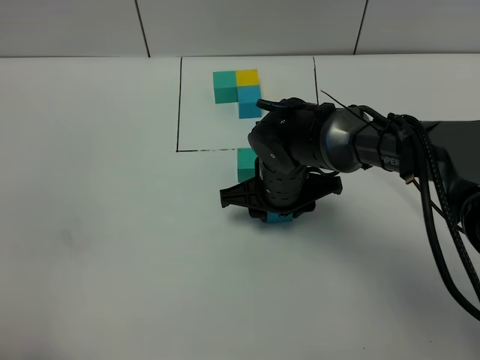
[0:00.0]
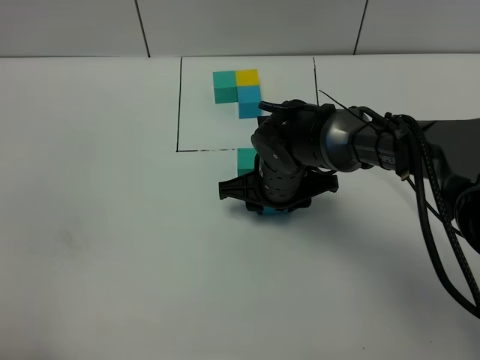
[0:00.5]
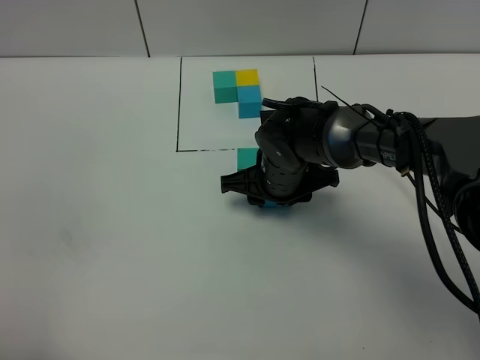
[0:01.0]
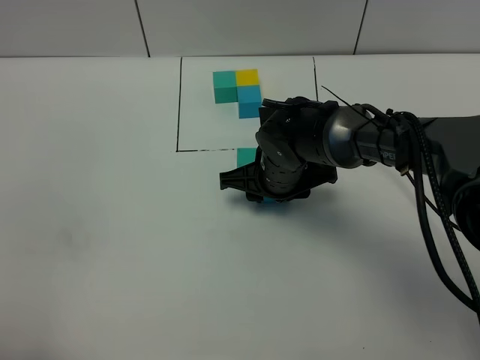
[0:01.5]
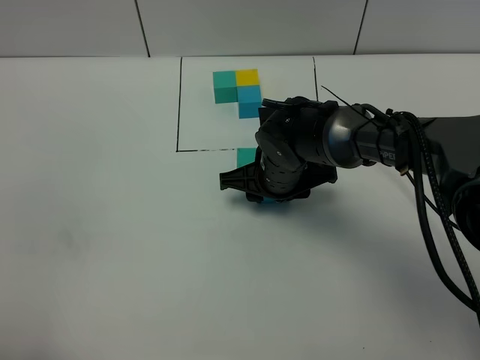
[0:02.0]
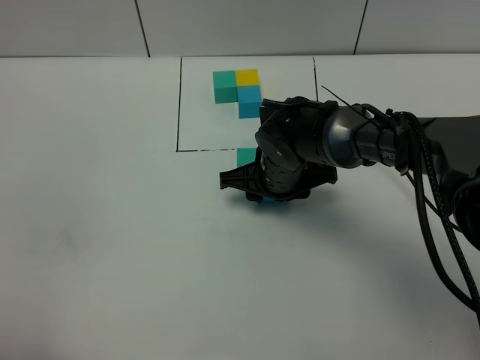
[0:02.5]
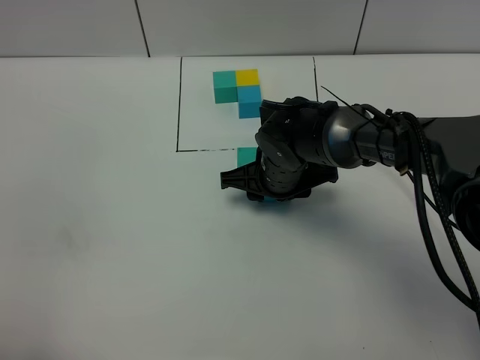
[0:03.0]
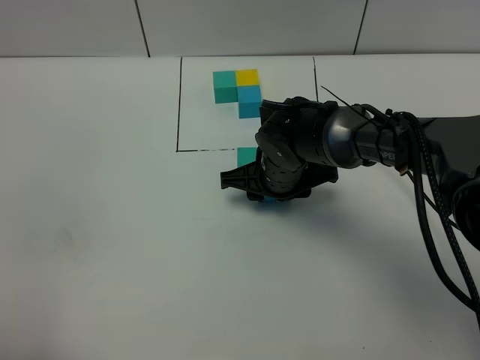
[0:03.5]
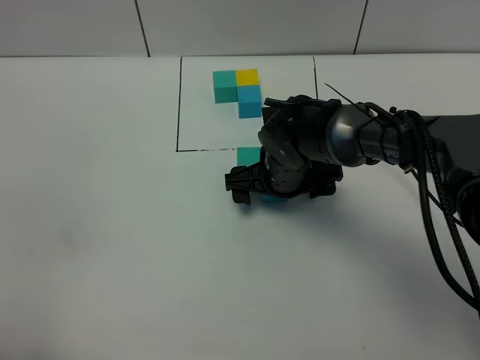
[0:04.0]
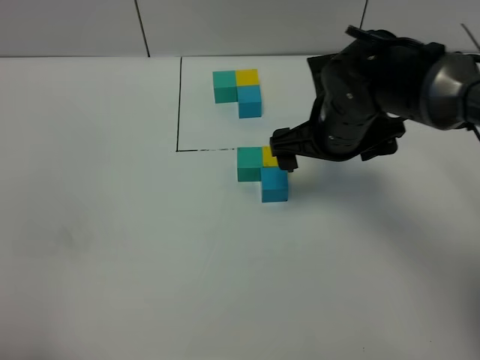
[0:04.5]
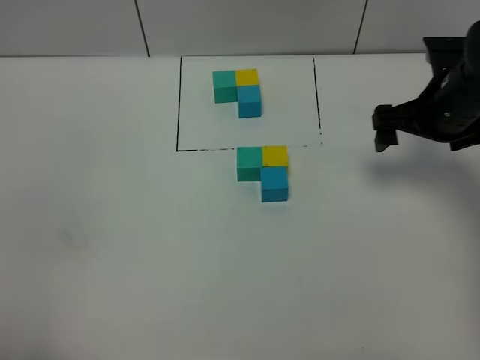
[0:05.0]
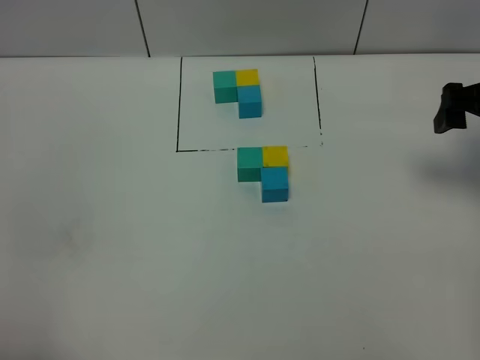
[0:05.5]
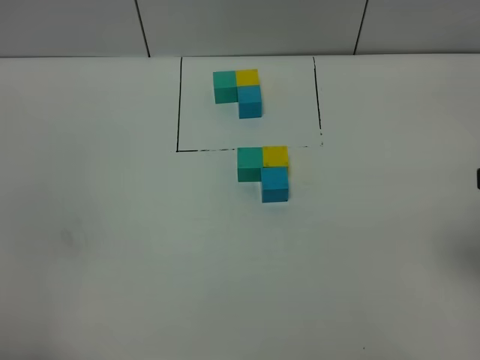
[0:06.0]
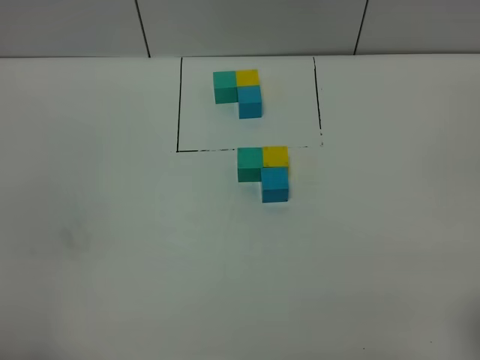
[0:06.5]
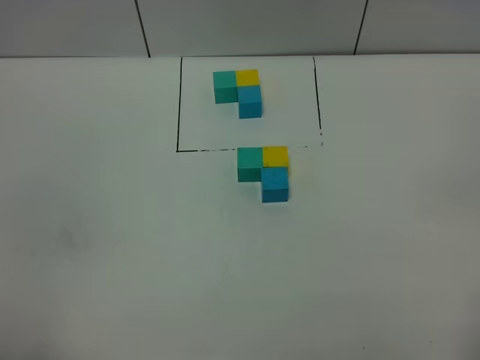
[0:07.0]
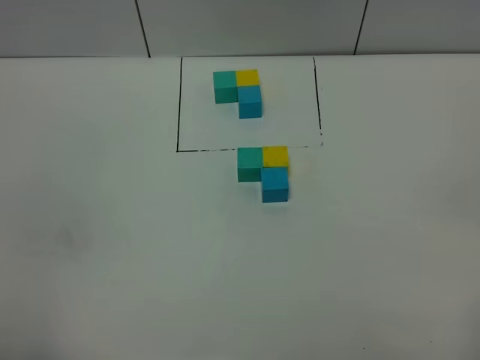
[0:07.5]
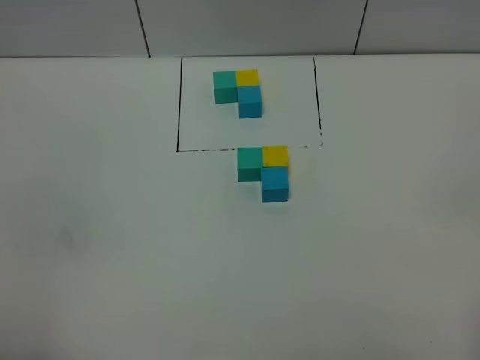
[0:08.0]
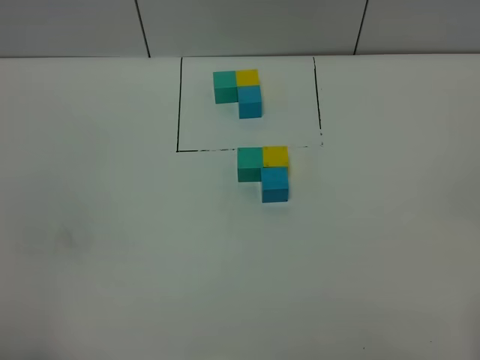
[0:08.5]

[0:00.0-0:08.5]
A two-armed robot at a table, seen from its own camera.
Task of the whole recording: According to the building block template in front, assemble the scattered blocks together.
Step, 0:00.0 to 0:03.5: Put the blue build block on the behind of the yellow build block.
0:00.0 to 0:02.0: The grippers stay close to where they were, moving slightly.
0:02.0 to 0:04.0: The right gripper opens its fingers.
0:04.0 to 0:06.5: The right gripper is displaced backward, to the right and upward by about 40 cm.

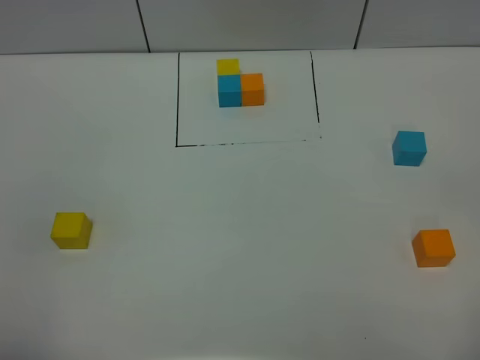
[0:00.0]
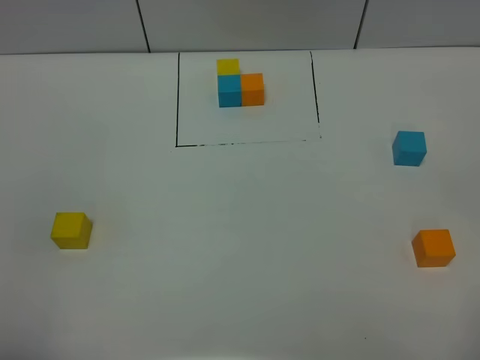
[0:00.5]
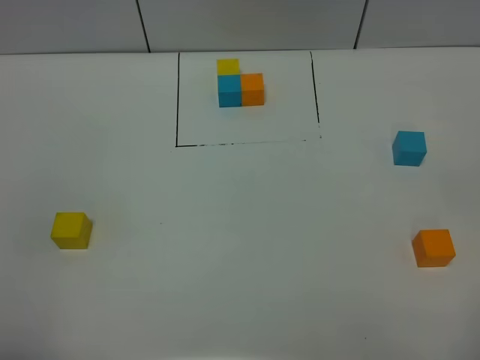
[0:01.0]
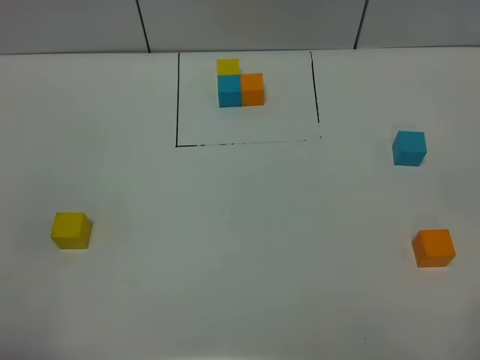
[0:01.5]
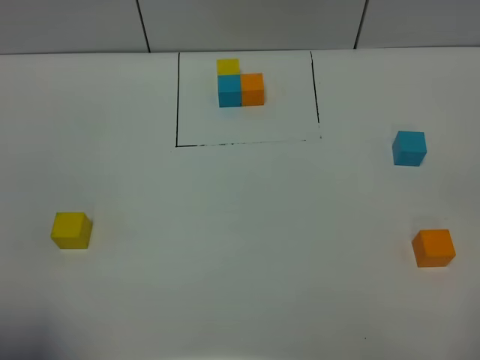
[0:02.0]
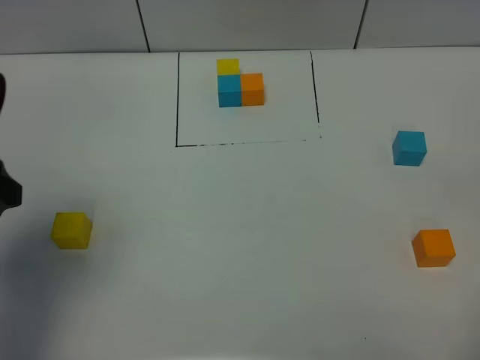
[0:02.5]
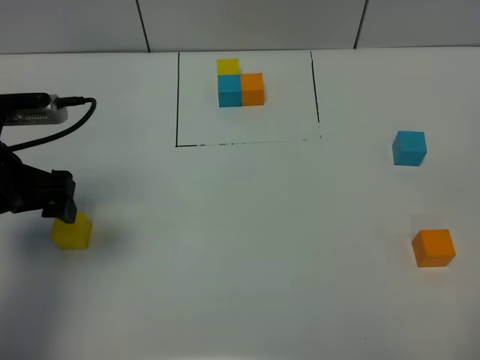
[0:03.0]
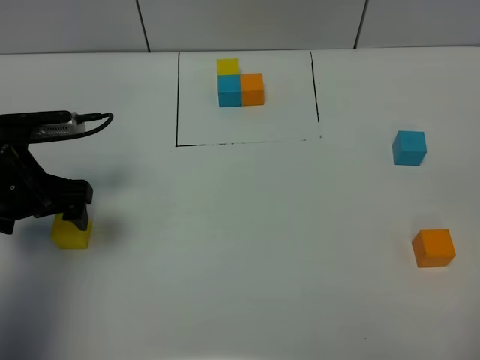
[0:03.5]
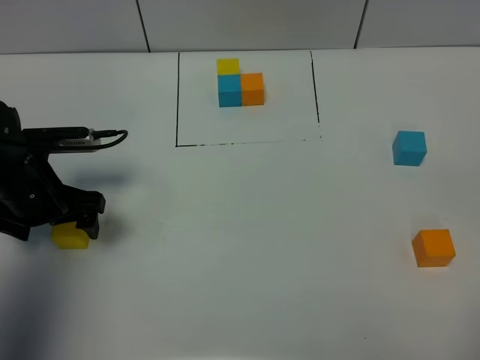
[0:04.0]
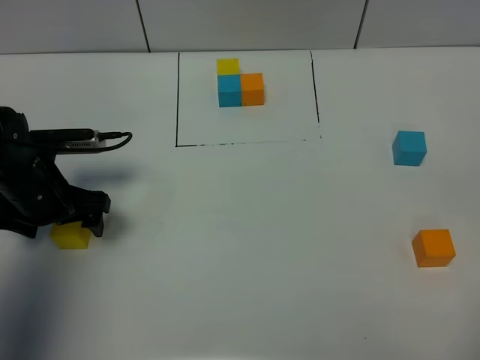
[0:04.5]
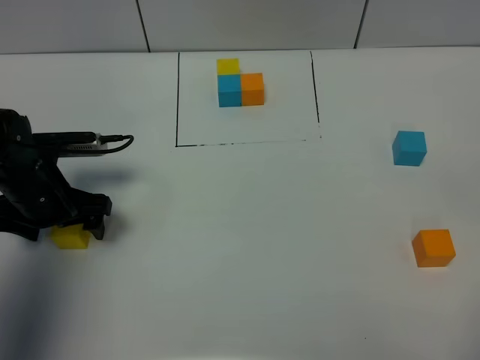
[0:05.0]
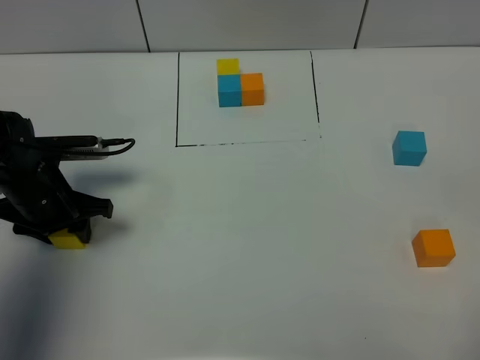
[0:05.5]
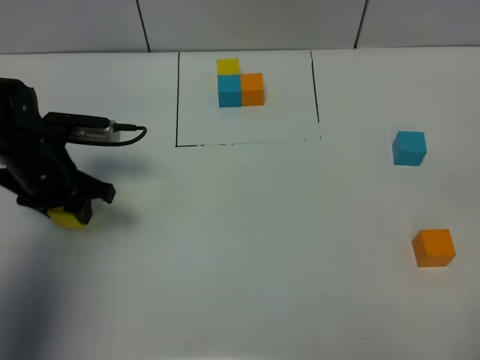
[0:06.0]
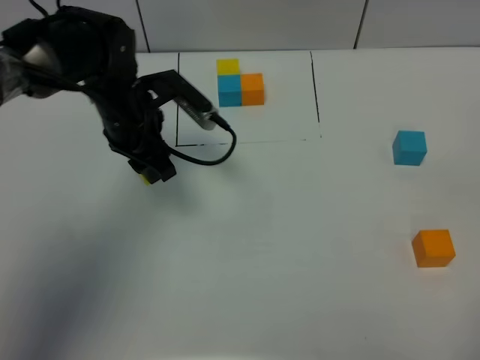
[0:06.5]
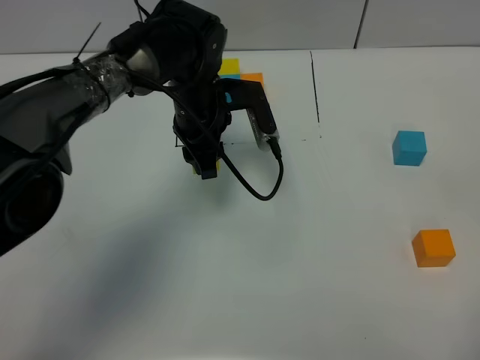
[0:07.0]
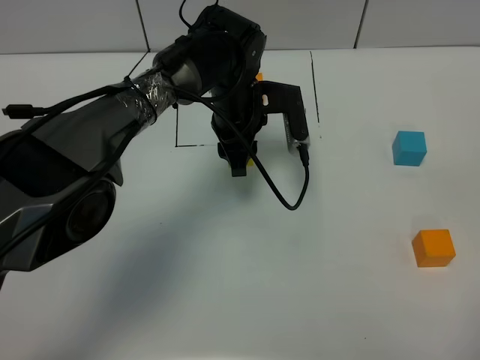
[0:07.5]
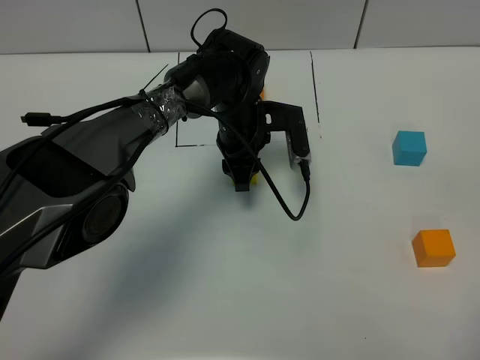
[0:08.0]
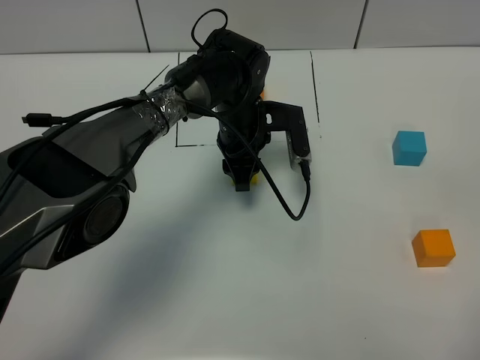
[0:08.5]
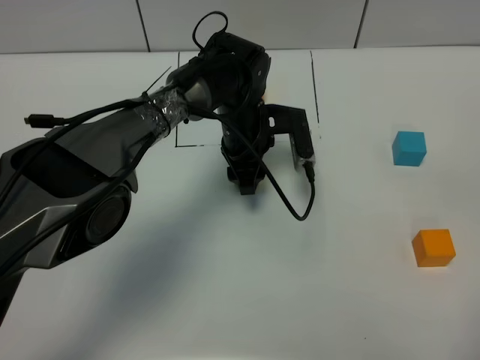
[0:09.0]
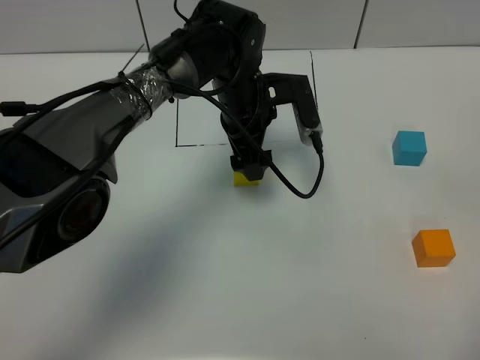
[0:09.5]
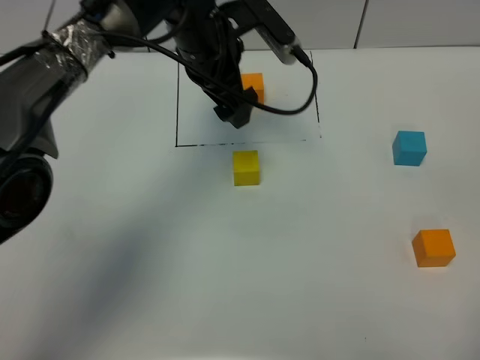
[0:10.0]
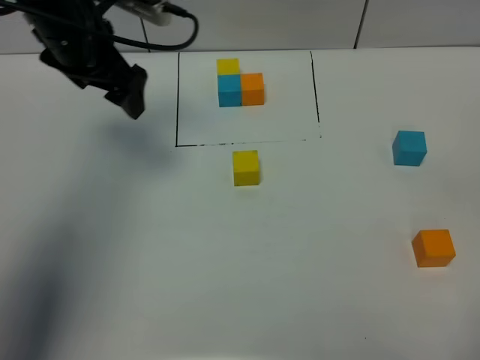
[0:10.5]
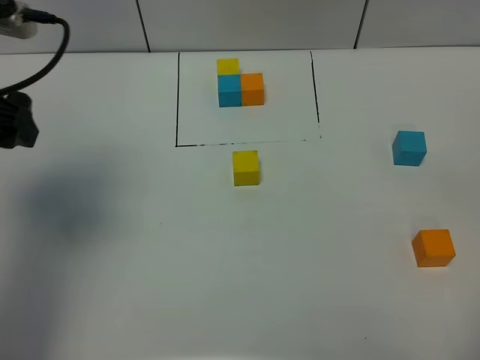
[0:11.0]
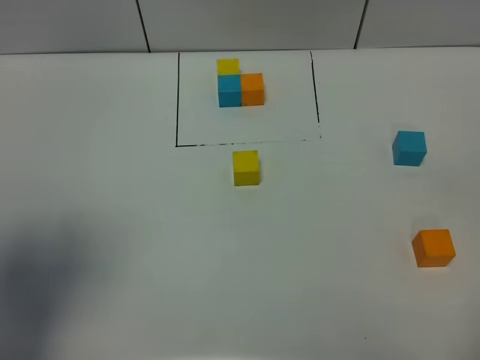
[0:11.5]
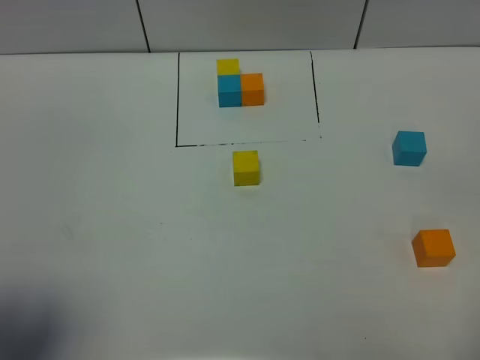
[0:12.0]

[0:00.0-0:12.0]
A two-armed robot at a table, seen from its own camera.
Task of the whole recording: According to the building block template in front, assemble the scattered blocks together.
Step, 0:00.0 to 0:09.0: Put the yellow build block in the center of the table.
0:02.0 to 0:04.0: The left gripper goes about 30 cm forward and downward.
0:04.0 to 0:06.0: The left gripper closes up.
0:06.0 to 0:08.0: The left gripper is displaced to the right by roughly 25 cm.
0:08.0 to 0:10.0: The left gripper heads upward, covering some 15 cm, and opens up.
0:10.0 to 0:12.0: The left gripper shifts roughly 40 cm backward and to the left.

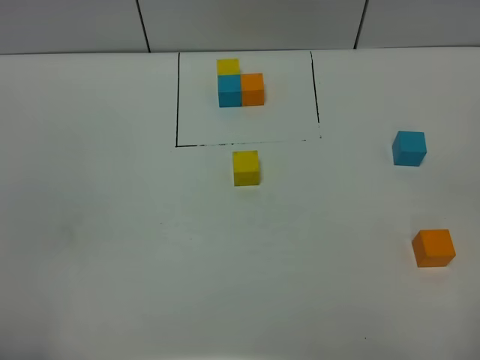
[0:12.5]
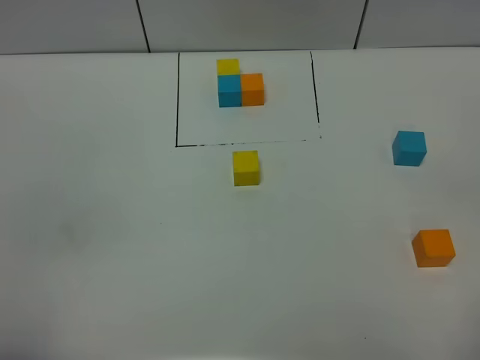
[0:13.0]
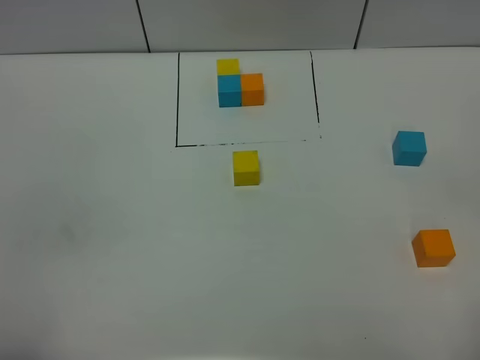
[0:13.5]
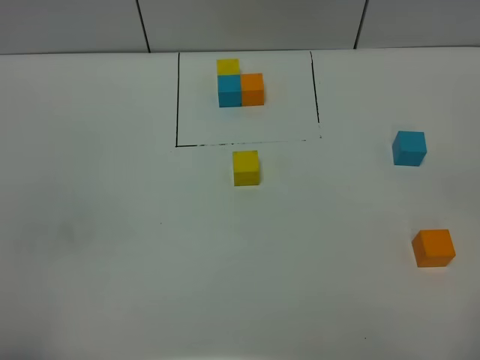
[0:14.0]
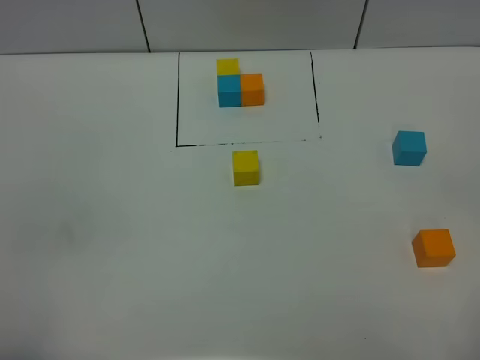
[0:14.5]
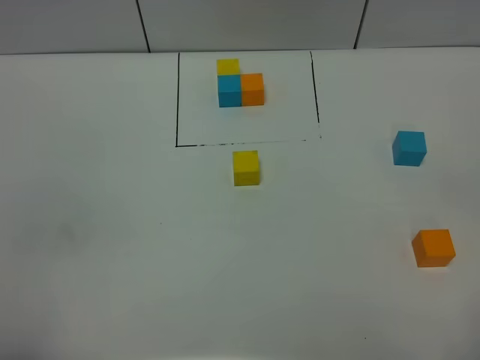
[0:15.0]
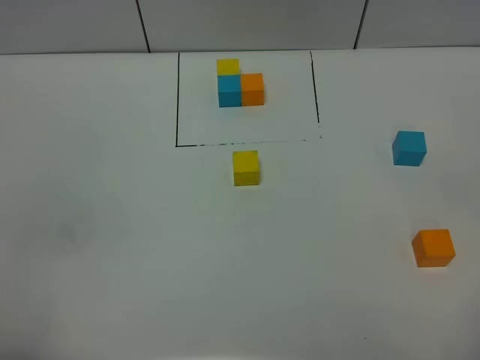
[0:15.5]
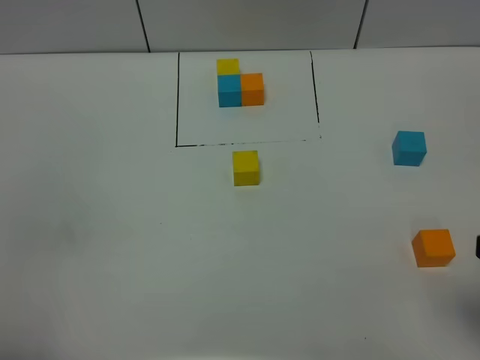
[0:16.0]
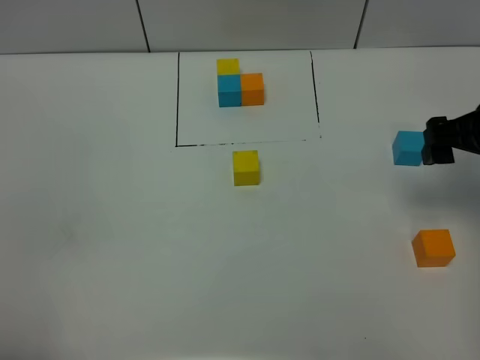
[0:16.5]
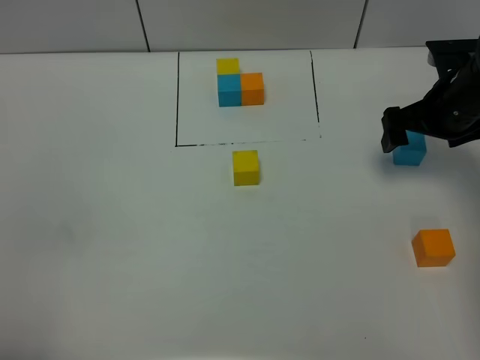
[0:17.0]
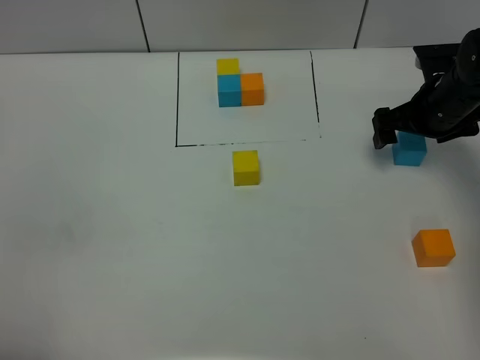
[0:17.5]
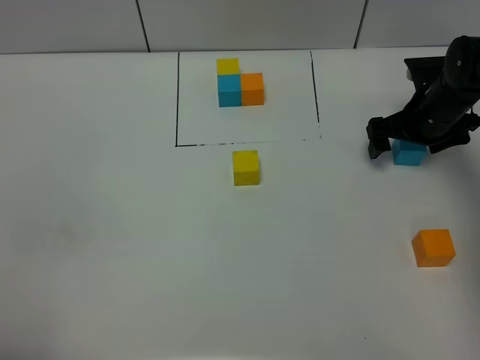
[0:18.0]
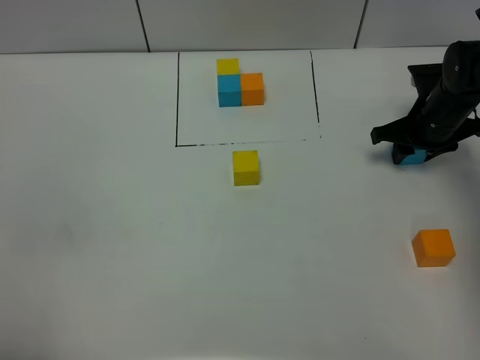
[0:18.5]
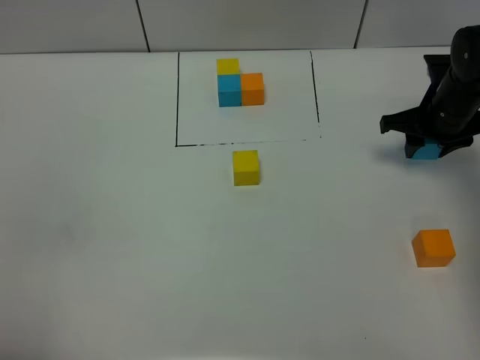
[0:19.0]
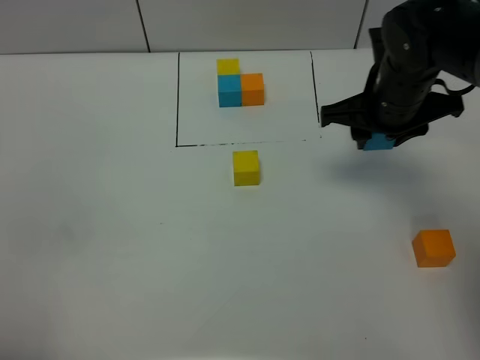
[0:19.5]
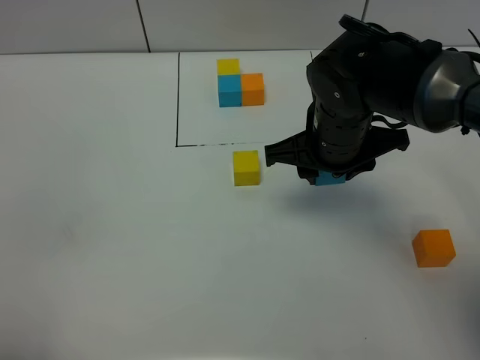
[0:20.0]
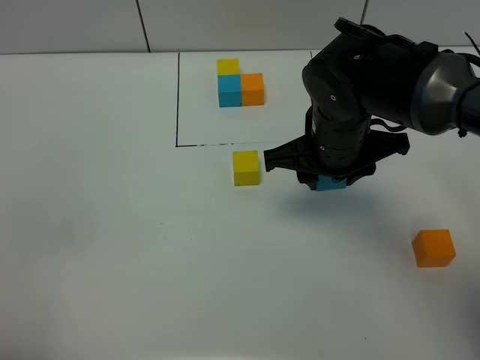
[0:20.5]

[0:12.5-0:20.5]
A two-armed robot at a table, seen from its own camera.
Task of the whole recording: According to the building block template in front, assemble the scattered blocks together.
0:14.5 to 0:16.5: The right gripper shifts some 30 cm forward.
0:16.5 to 0:18.5: The right gripper moves downward and forward, some 15 cm, and closes its fingers.
0:18.5 to 0:20.5: The right gripper goes roughly 25 cm to the left, upward and backward.
